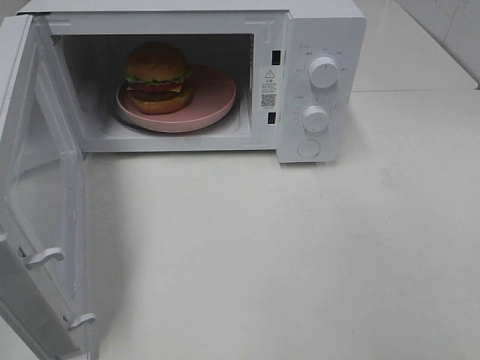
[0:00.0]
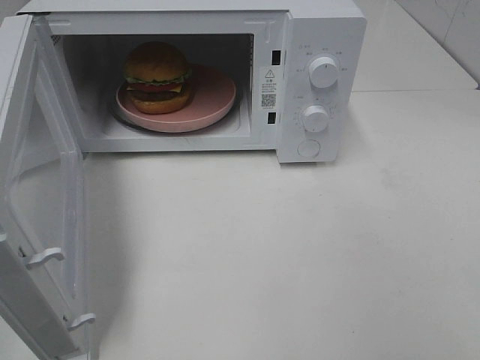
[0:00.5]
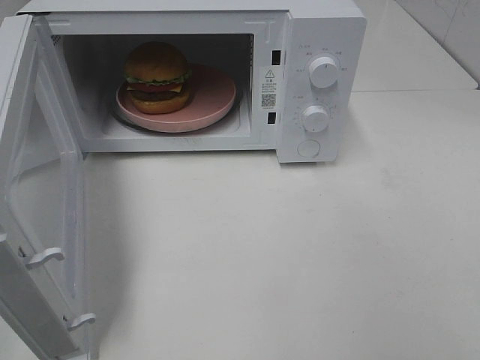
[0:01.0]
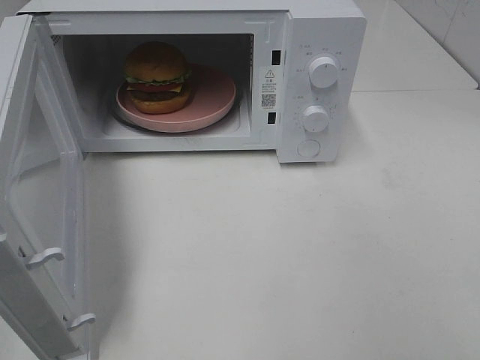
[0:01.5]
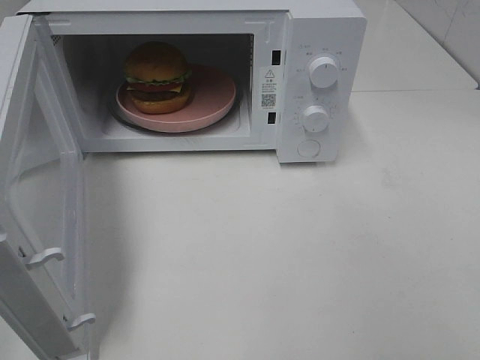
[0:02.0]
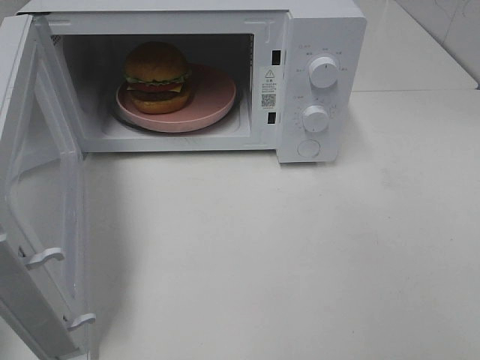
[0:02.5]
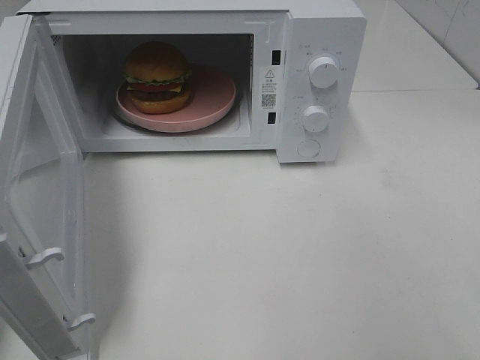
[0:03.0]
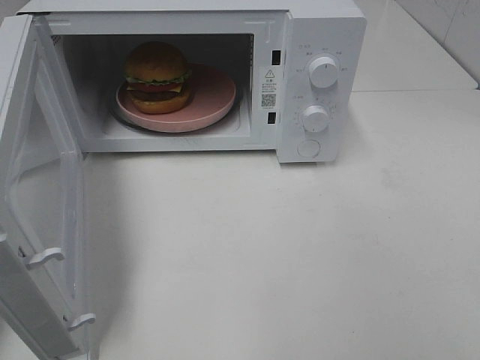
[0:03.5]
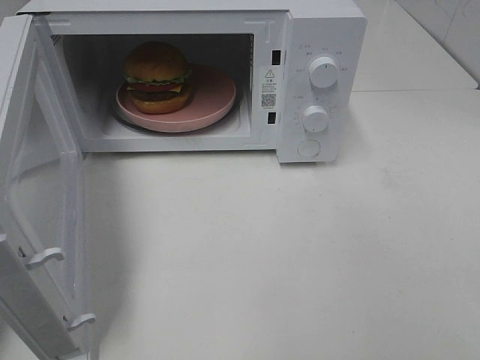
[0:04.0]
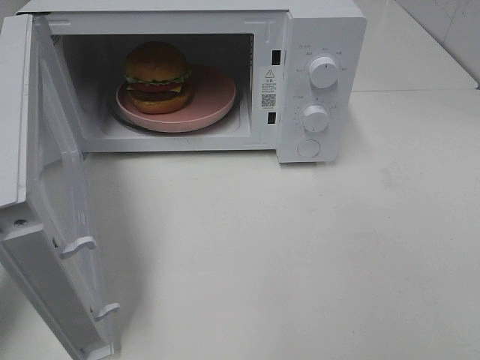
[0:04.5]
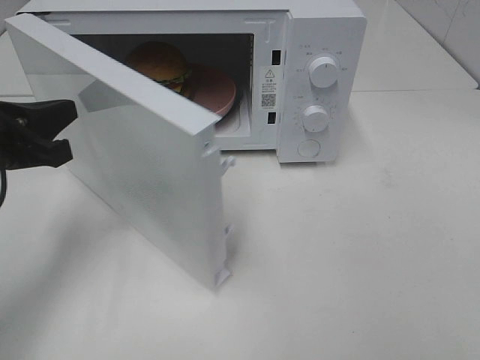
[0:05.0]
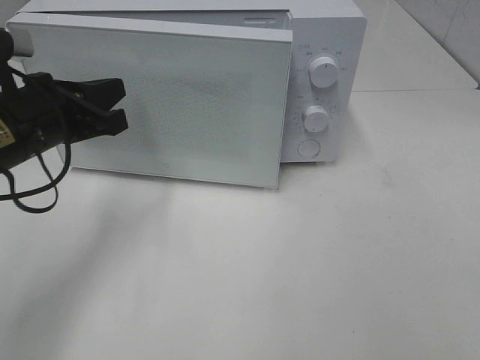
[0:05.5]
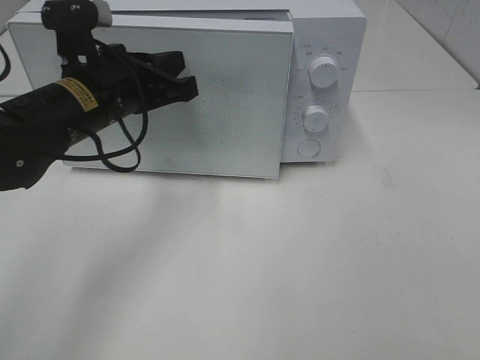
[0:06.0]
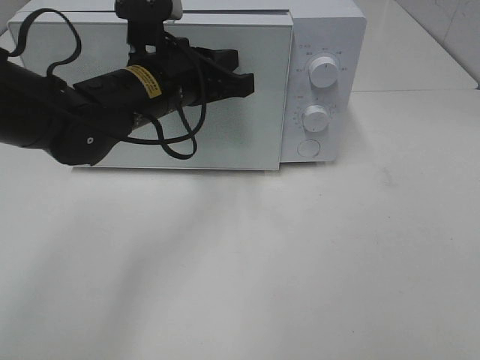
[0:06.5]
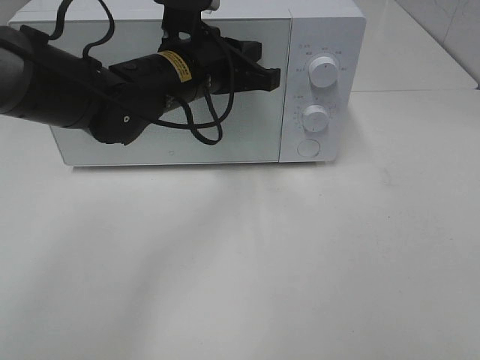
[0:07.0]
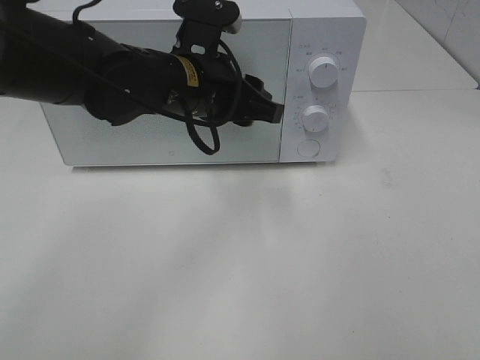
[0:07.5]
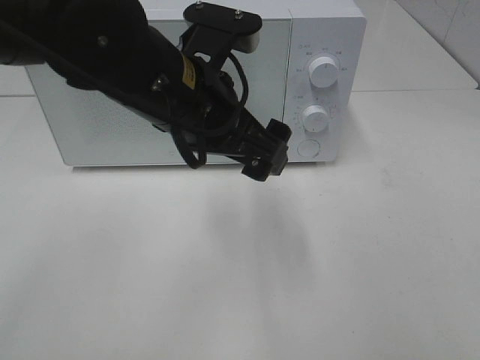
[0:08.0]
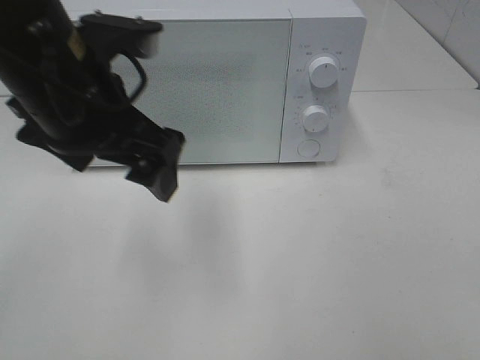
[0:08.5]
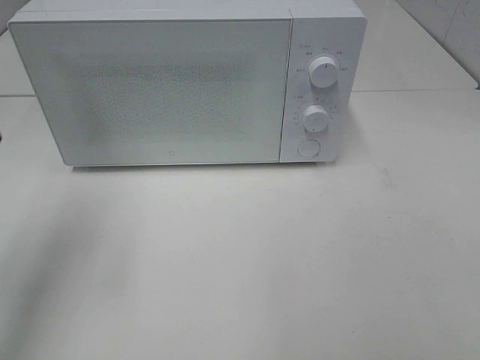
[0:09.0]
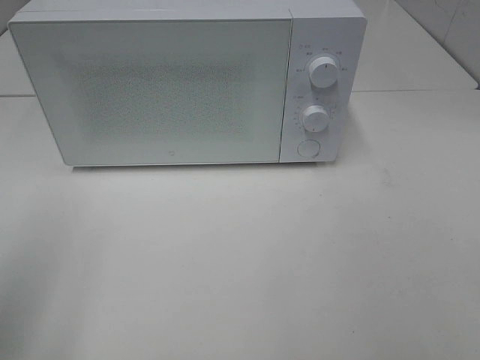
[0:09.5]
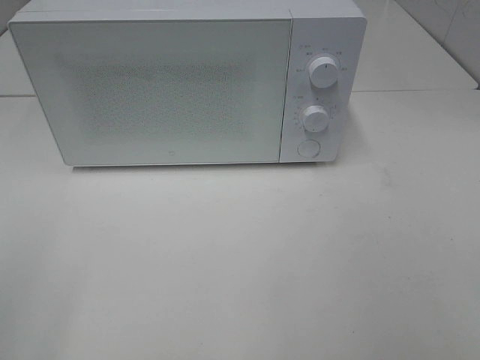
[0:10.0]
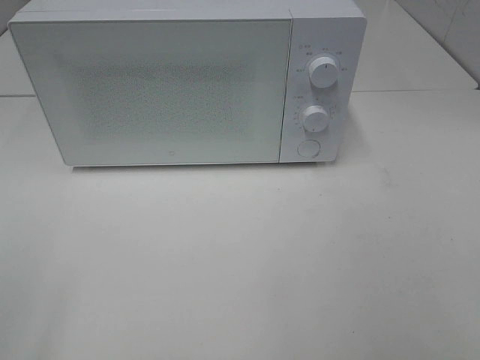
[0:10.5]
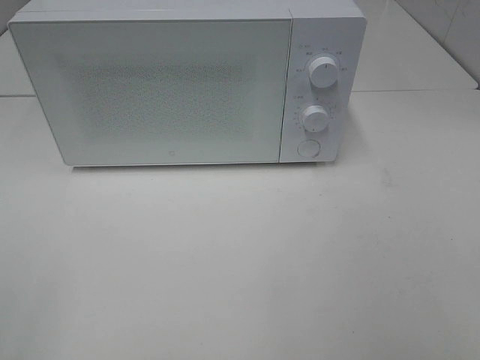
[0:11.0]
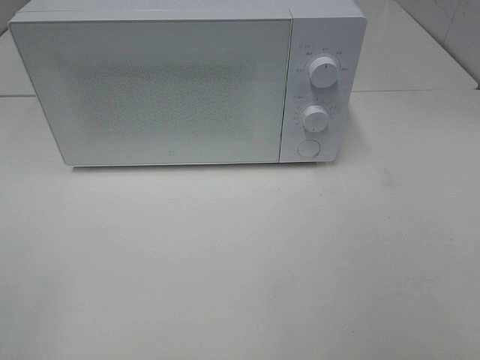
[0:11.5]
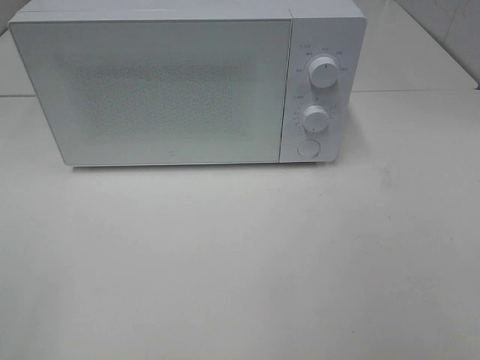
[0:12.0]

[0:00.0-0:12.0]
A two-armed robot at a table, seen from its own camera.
Task of the whole recording: Heat the burger.
Step, 0:00.0 to 0:07.0: Left hand: close the microwave door.
0:00.0 to 0:02.0: The two grippers keep their place.
0:04.0 to 0:06.0: The left gripper travels to the right and forward by about 25 cm.
0:06.0 to 0:08.0: The left gripper is displaced to the right and backward by roughly 10 cm, and opens its fingers.
0:08.0 to 0:10.0: The left gripper travels to the left and backward by approximately 35 cm.

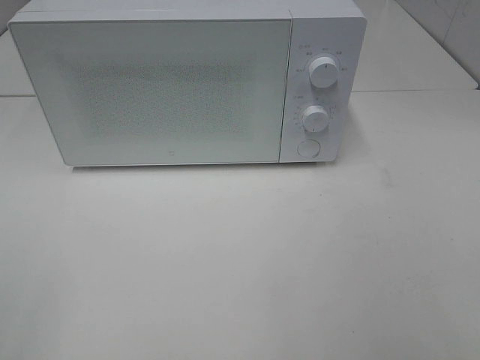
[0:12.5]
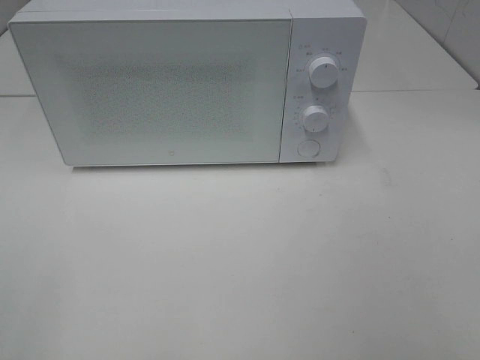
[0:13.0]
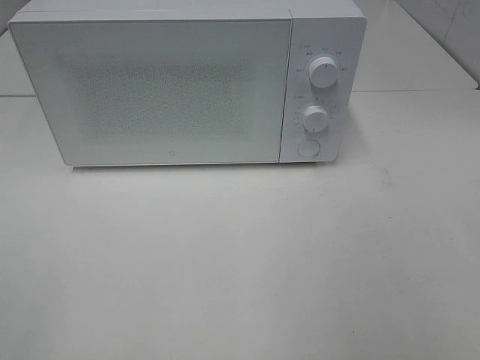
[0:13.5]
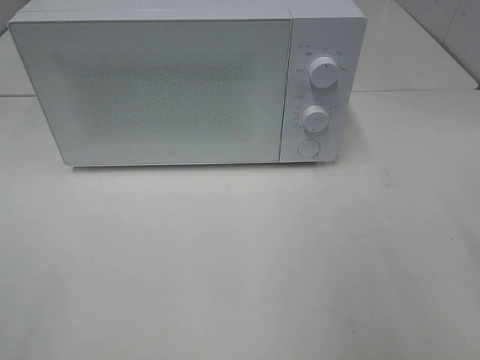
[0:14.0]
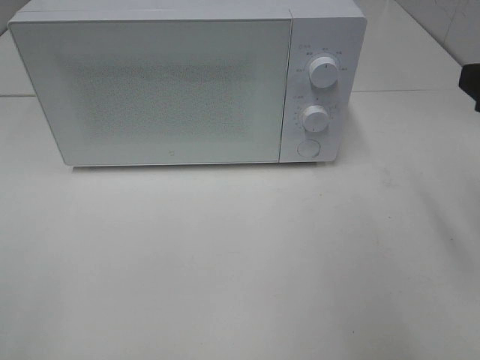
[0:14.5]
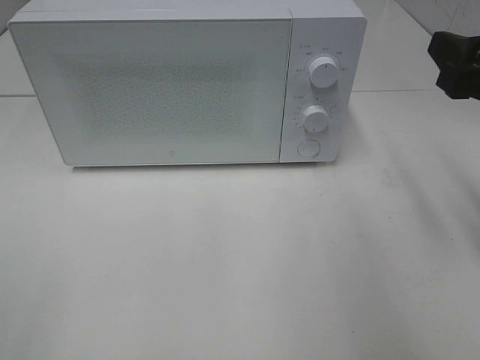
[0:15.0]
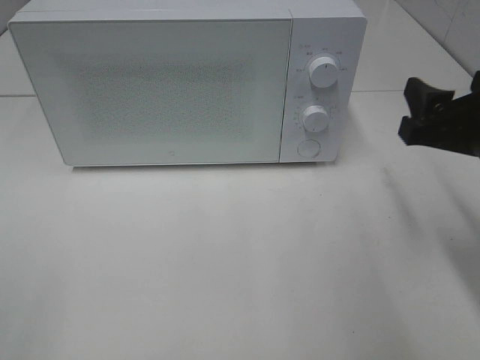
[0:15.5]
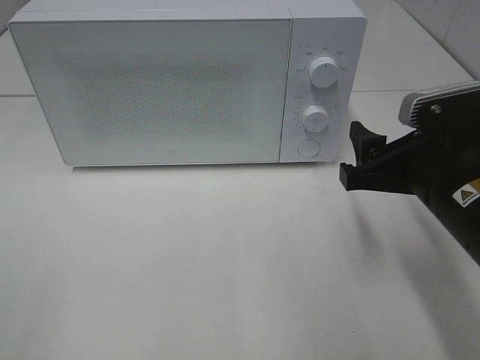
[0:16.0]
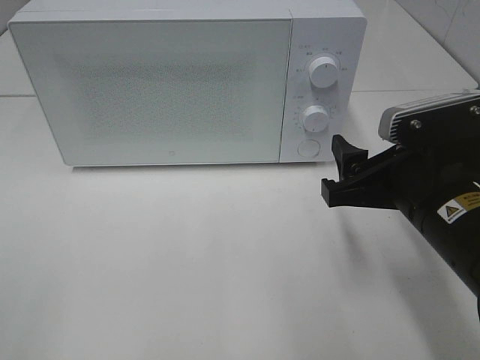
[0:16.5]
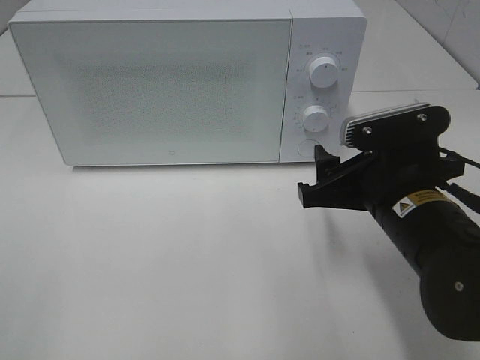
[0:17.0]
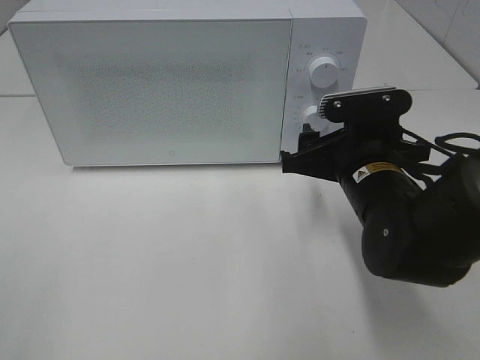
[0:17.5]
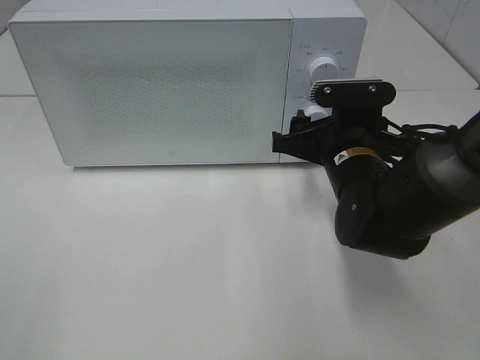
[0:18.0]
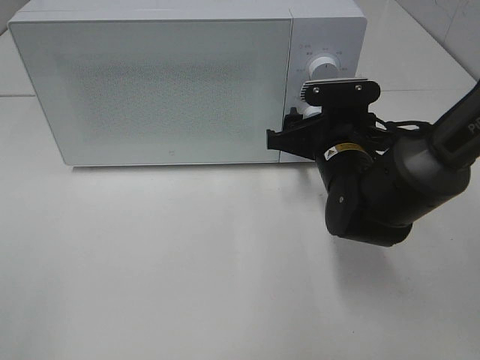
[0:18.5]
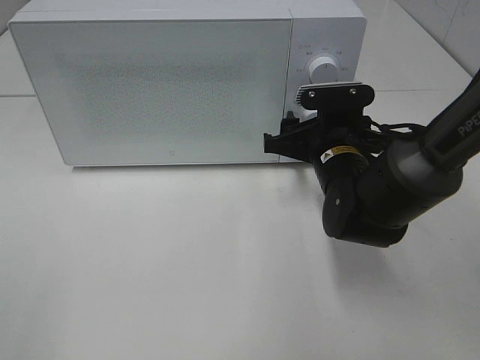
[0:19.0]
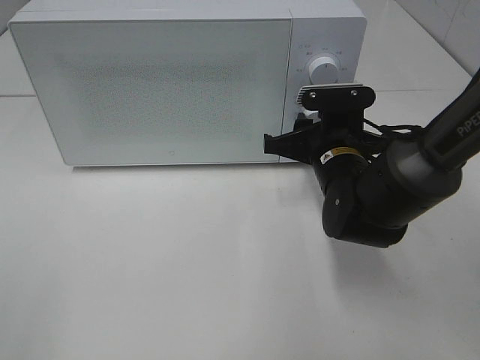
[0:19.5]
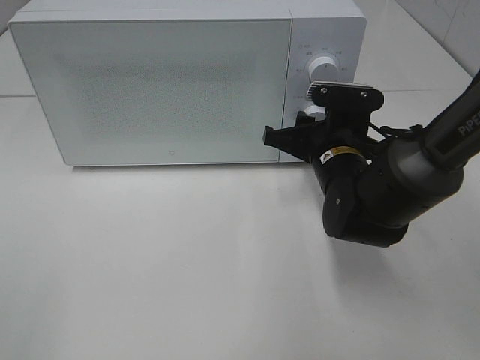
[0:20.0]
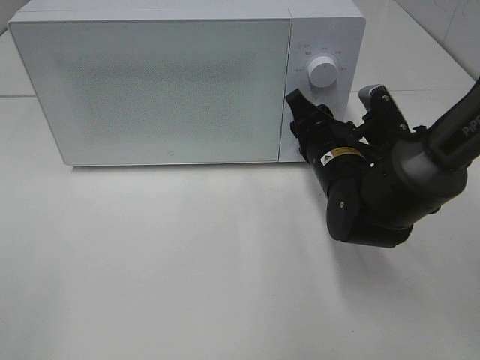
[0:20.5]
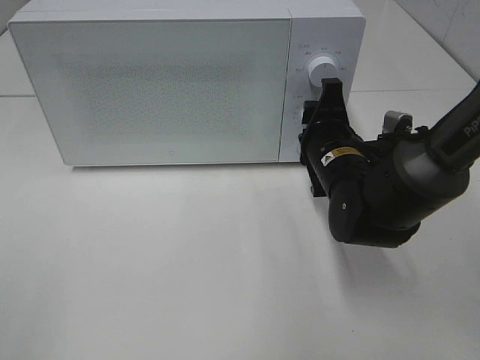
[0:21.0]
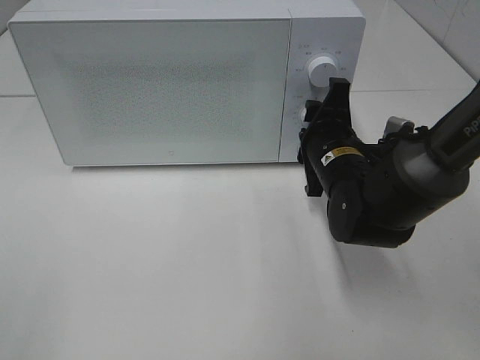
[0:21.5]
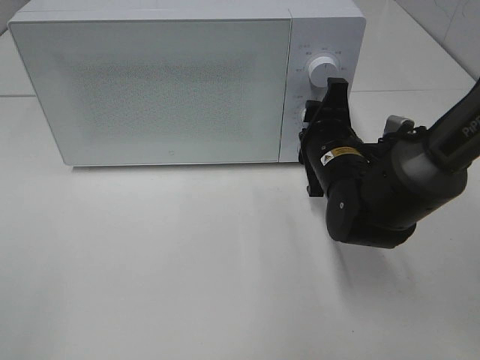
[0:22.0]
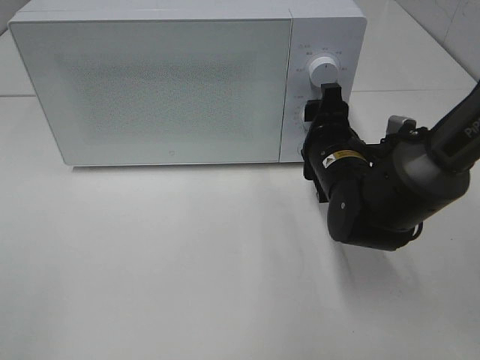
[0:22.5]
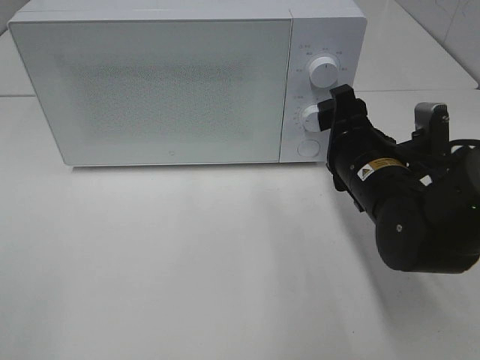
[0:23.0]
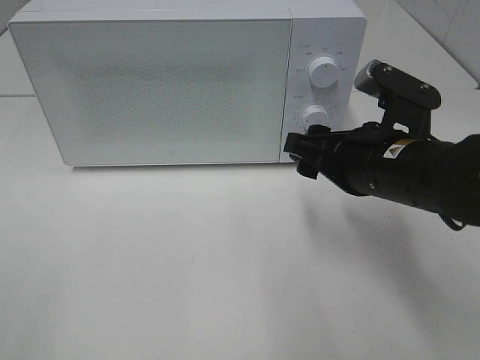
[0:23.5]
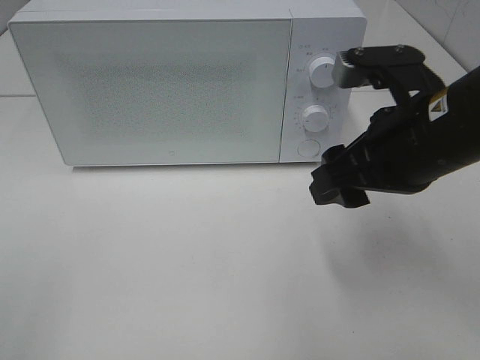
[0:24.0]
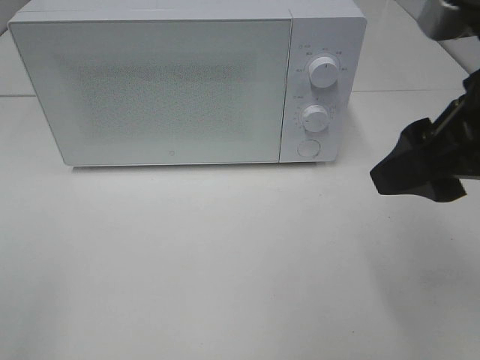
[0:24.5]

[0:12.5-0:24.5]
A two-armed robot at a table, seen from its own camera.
Task of the whole recording: Heat the burger.
Step, 0:12.5 to 0:22.5: Right hand: twist timer button.
0:14.5 to 0:16.5: The right gripper shifts some 15 cm downward and to the left.
0:16.5 to 0:18.5: The right gripper travels forward and downward by some 15 cm.
0:22.5 to 0:24.5: The right gripper moves upward and backward, approximately 25 cm.

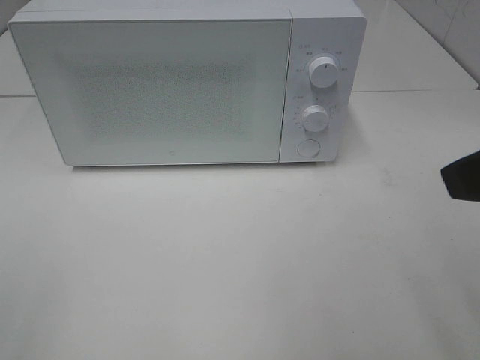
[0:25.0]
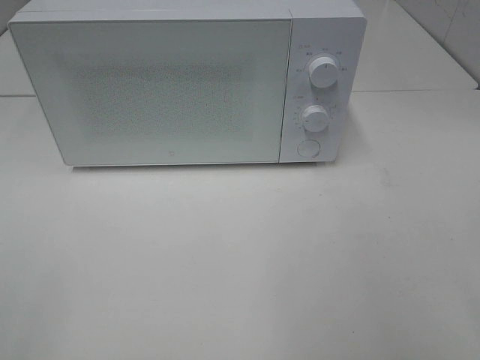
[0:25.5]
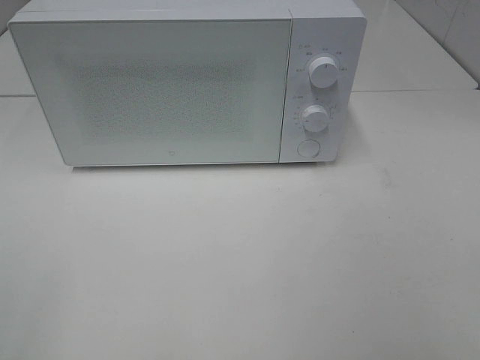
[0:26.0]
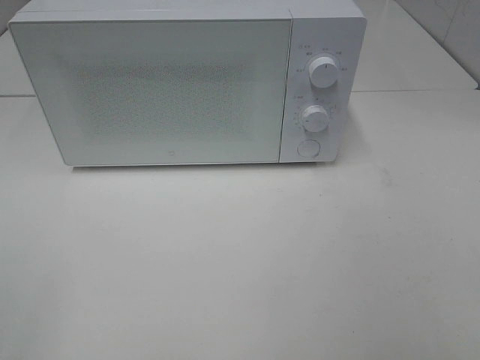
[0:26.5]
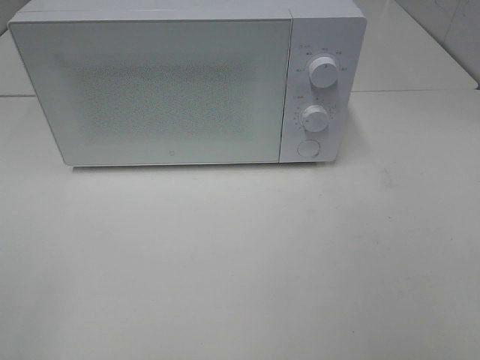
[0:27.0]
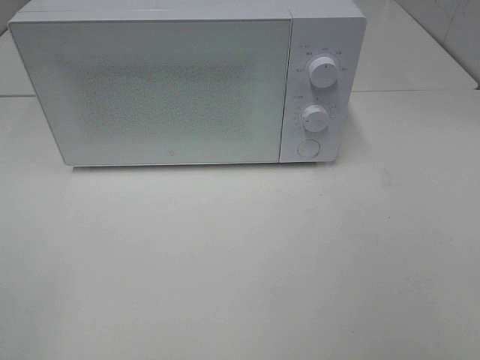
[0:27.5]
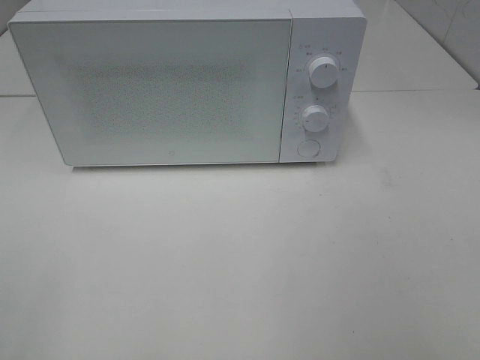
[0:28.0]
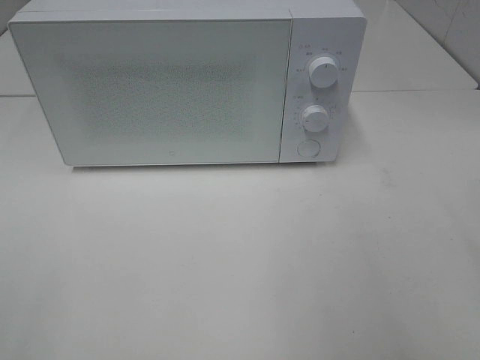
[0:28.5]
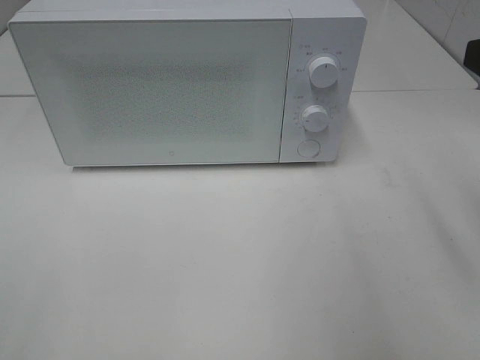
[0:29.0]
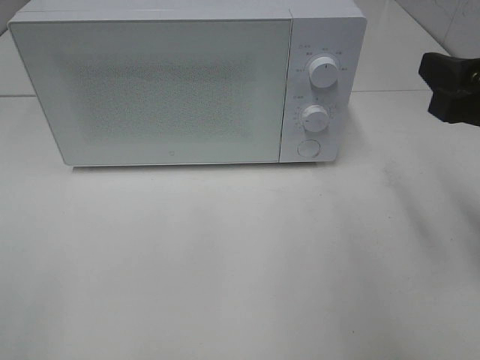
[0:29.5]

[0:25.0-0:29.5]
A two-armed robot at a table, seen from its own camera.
Task of the whole recording: Heat the burger.
0:25.0 to 0:27.0: The right gripper shifts approximately 15 cm backward and to the right.
0:27.0 to 0:29.5: The right gripper travels forward by about 20 cm.
